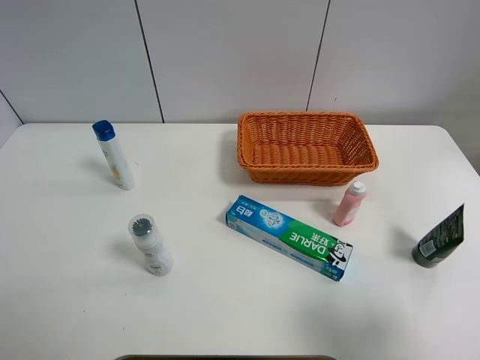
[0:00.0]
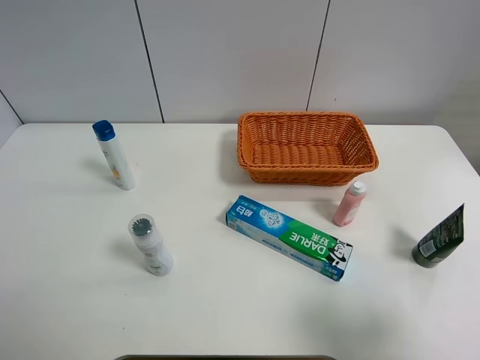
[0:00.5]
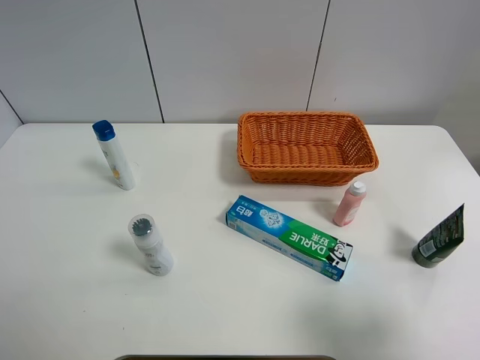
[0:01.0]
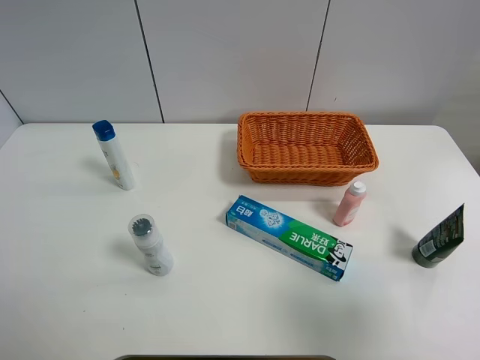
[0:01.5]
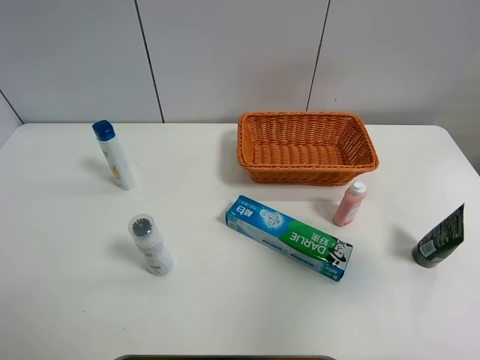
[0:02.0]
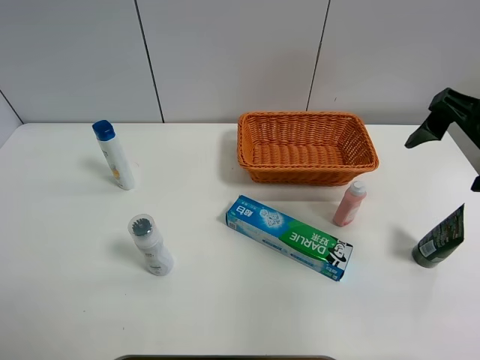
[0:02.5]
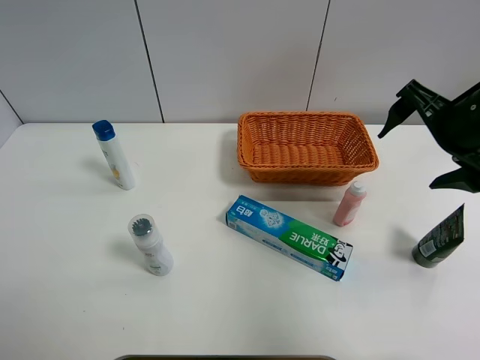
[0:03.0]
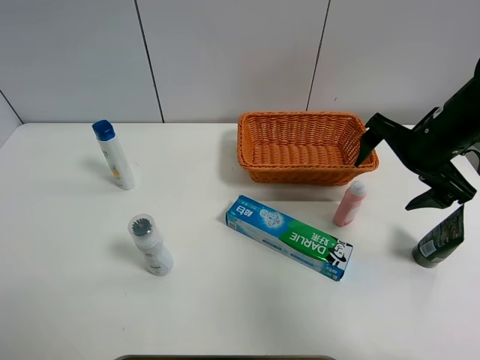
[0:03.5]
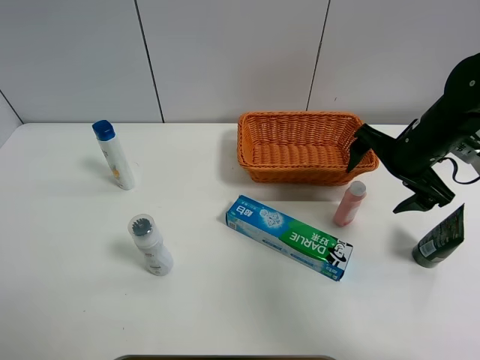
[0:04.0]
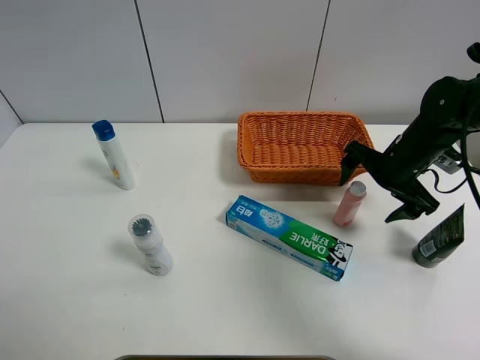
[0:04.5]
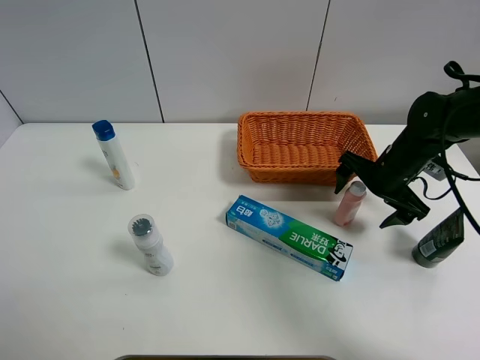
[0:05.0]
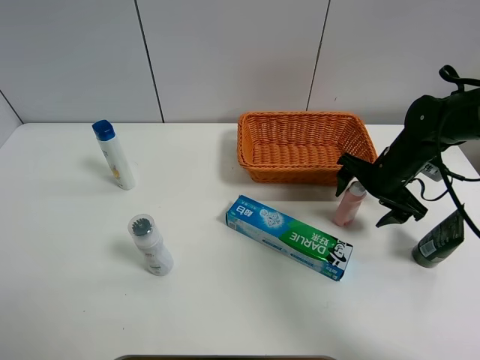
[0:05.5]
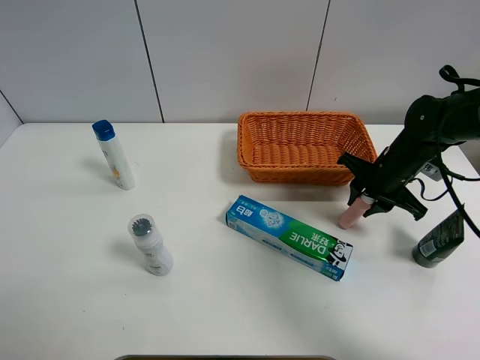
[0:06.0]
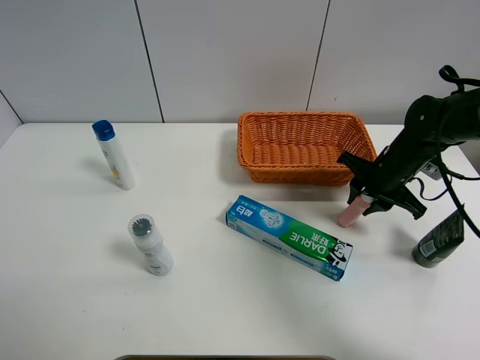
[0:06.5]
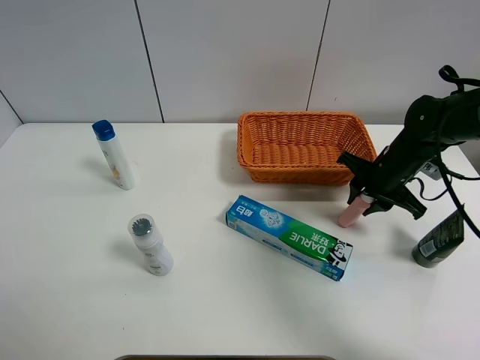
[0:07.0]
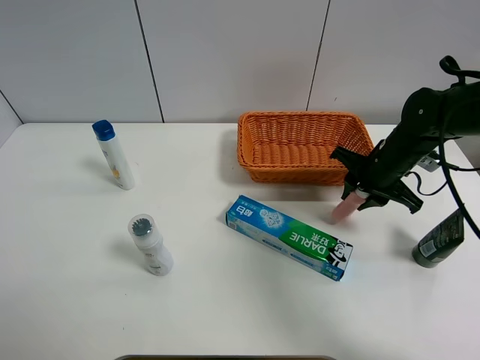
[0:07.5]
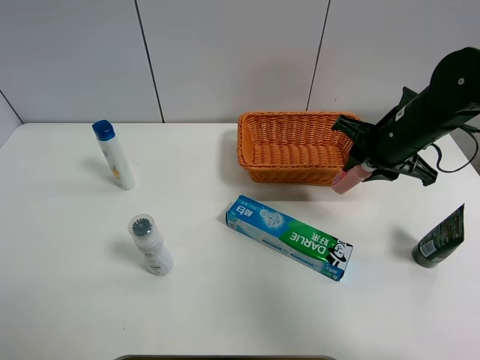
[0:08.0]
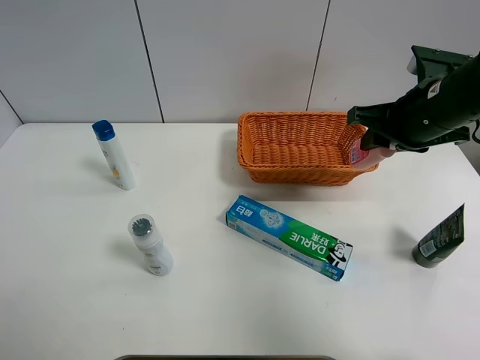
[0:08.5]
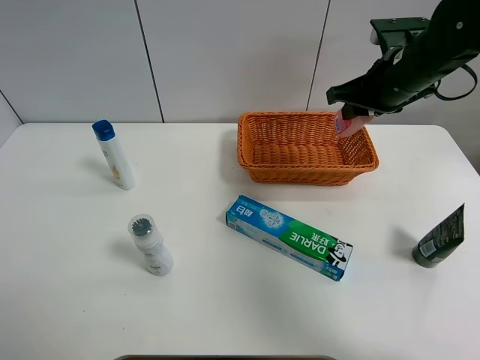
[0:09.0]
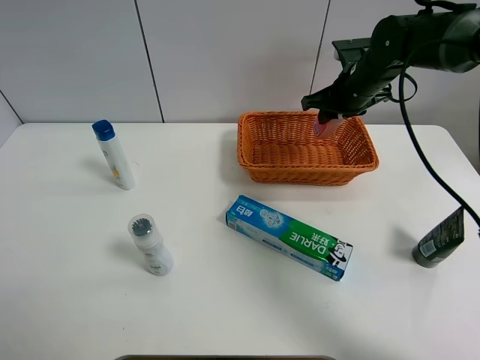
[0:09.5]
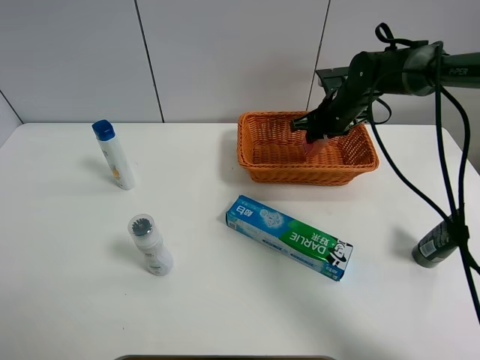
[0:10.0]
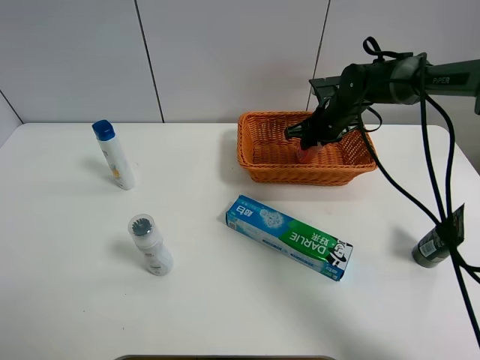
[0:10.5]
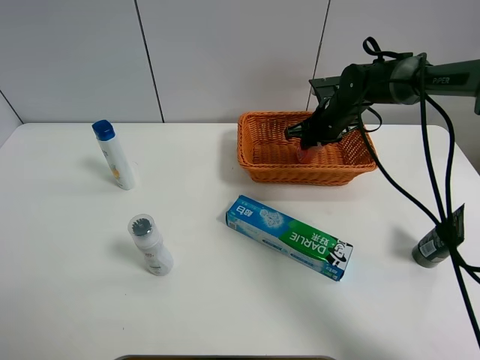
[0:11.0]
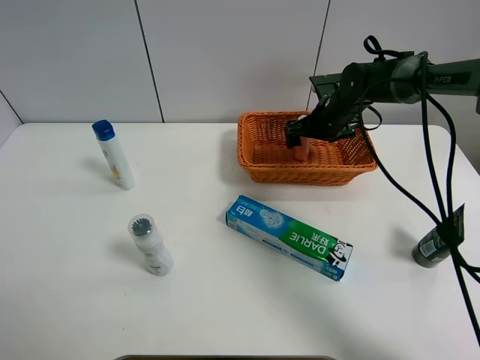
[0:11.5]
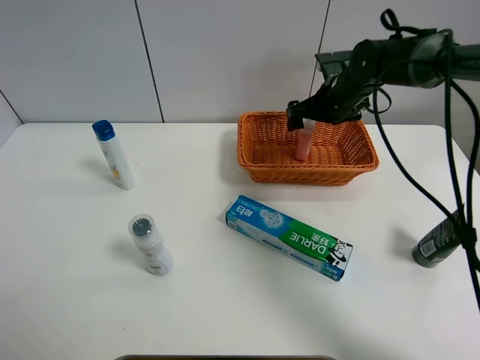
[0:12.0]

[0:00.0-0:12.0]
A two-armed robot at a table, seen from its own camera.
Task of the whole recording: Place the object closest to the toothpaste in the basket.
Step, 0:00.0 to 0:06.0: Grasp the pink laundry detergent with right gripper.
0:00.0 to 0:02.0: The right gripper heads forward and upward, covering approximately 15 cm.
0:02.0 to 0:04.0: The right gripper moves forward and downward, roughly 25 cm.
0:04.0 to 0:06.0: The right gripper goes roughly 5 cm downward, and closes up.
0:06.0 to 0:08.0: The right gripper travels upward by approximately 10 cm.
0:08.0 to 0:10.0: The right gripper moves forward and downward, some 15 cm.
0:10.0 to 0:12.0: The right gripper opens.

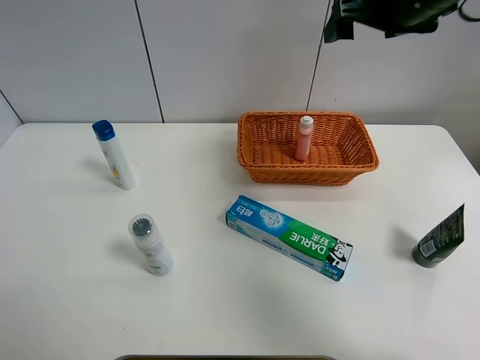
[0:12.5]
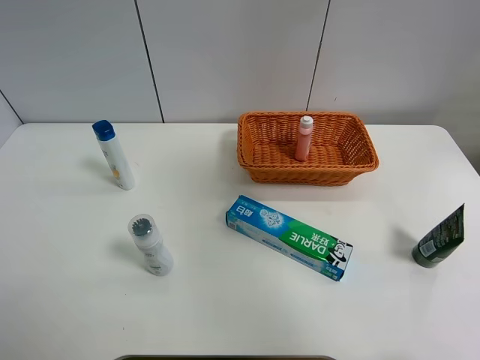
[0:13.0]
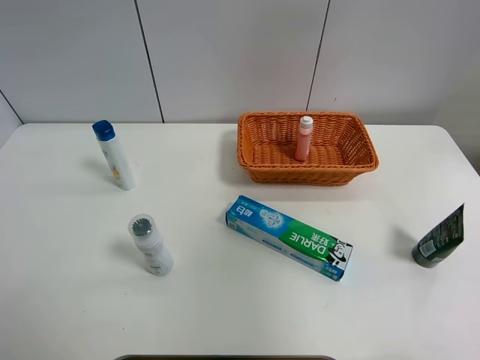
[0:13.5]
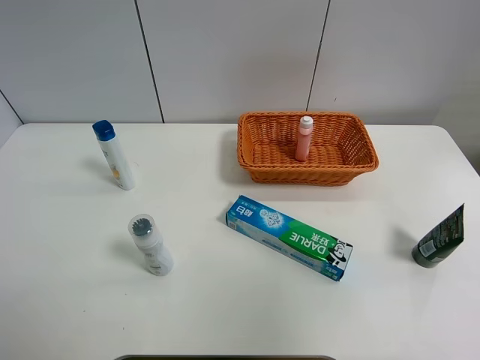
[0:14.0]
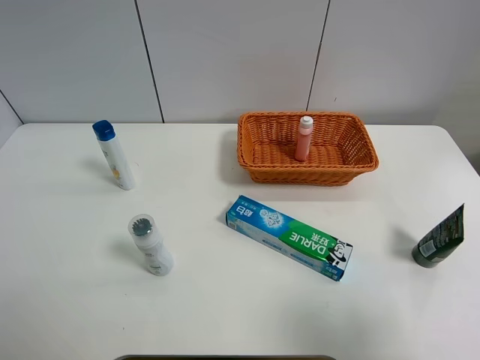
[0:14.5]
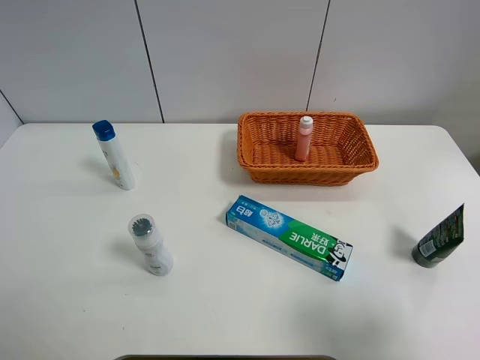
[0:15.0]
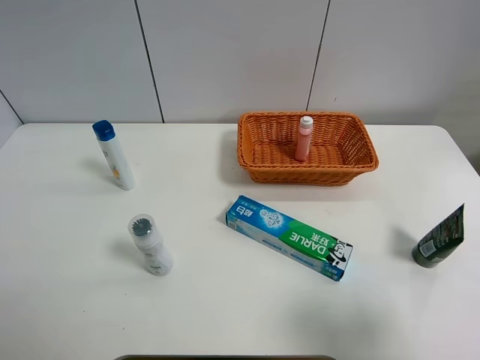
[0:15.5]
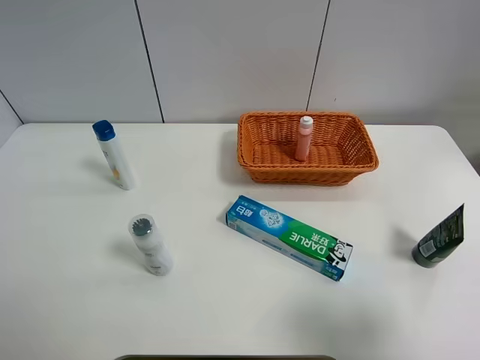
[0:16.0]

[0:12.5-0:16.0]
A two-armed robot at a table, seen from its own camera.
Task of the whole recording: Place the object closest to the toothpaste in the basket.
0:12.5 to 0:14.5: The right gripper moves backward, some 35 cm.
